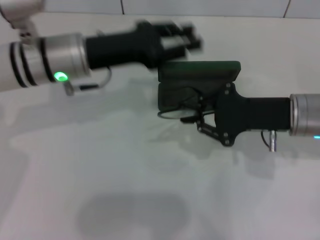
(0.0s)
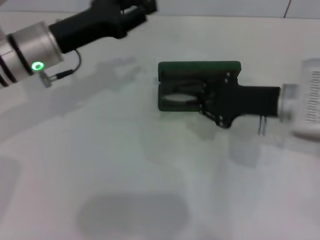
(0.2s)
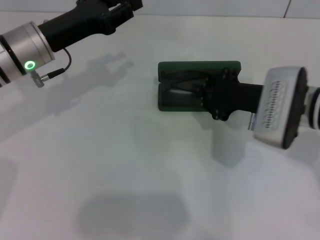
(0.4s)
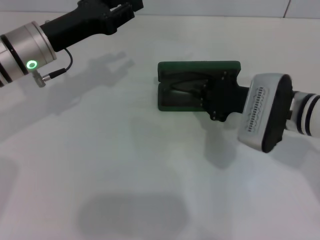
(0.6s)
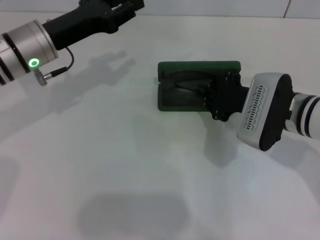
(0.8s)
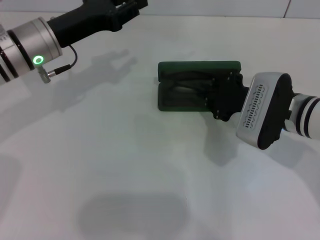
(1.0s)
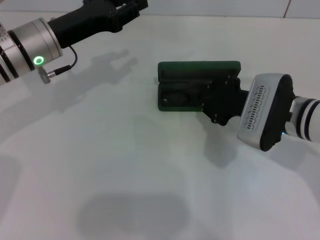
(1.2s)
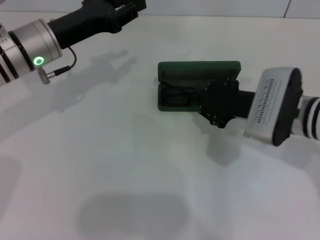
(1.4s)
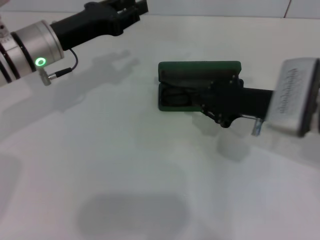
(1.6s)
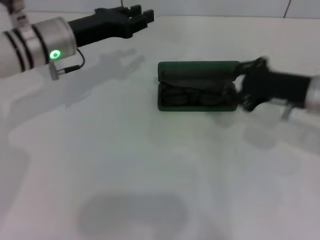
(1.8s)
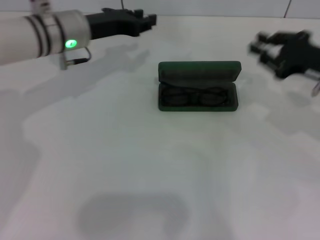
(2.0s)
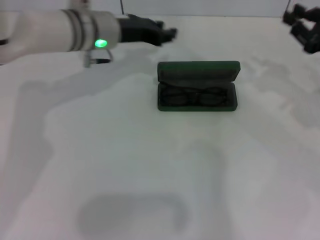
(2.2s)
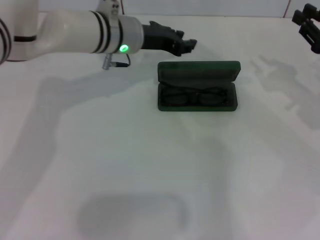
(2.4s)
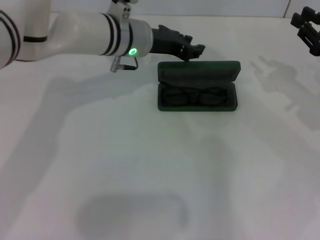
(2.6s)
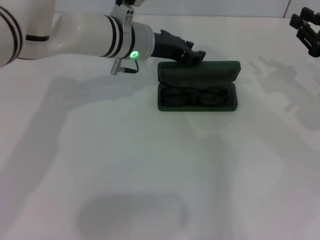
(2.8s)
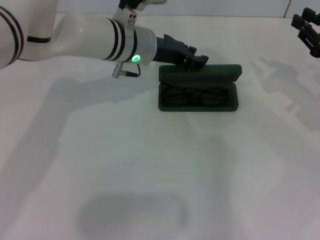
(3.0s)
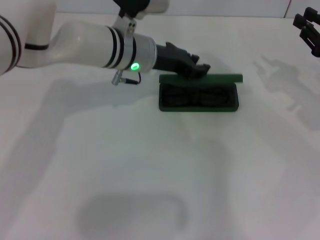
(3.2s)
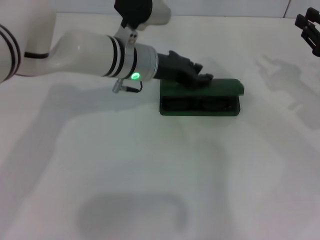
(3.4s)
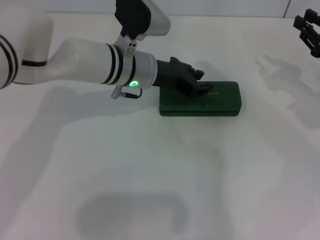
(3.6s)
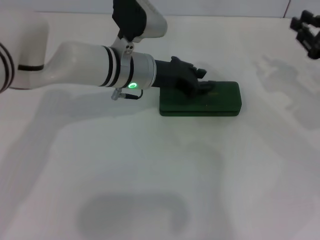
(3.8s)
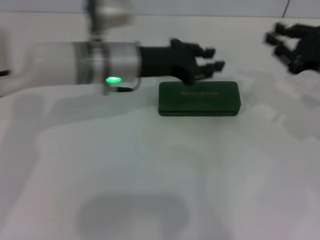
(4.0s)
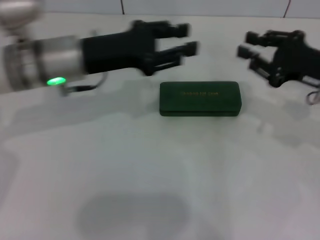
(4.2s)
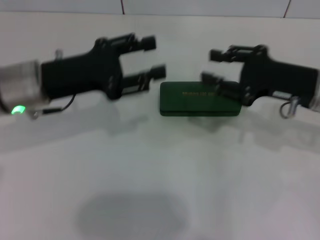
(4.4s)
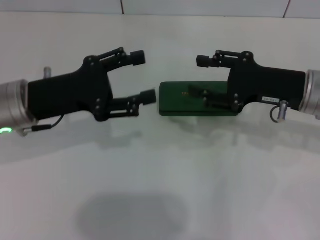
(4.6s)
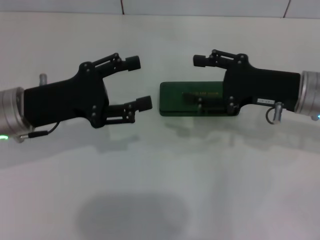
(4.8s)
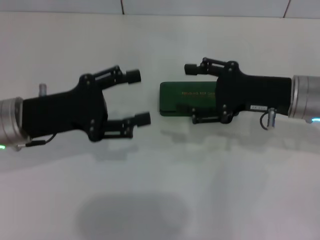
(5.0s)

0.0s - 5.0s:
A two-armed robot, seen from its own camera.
Step, 0.0s - 1.2s: Put the glasses into the case with your right hand.
Step, 1.4s - 3.4s: Close the glasses case with your left hand.
1.6s - 3.4s: The two grippers go roughly 15 cm to the right.
3.4s - 5.0s: The left gripper travels to the left and backward by approximately 20 cm, and opens its fingers; the right gripper travels to the left by approximately 10 cm, and opens its fingers.

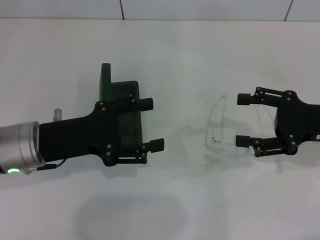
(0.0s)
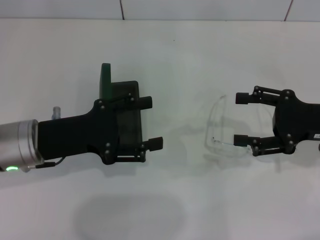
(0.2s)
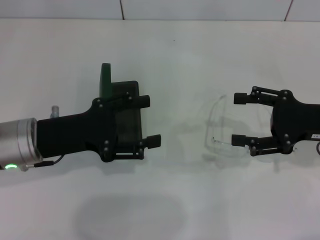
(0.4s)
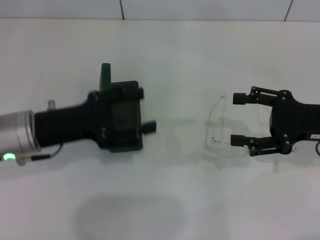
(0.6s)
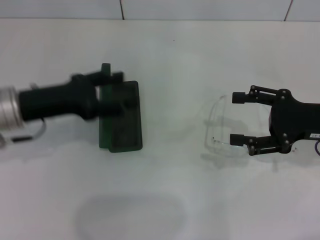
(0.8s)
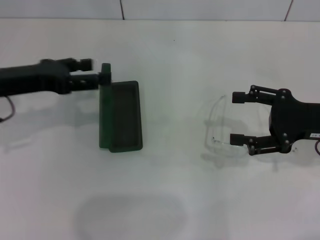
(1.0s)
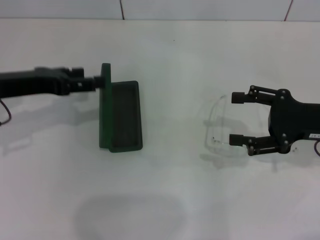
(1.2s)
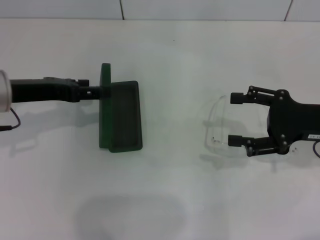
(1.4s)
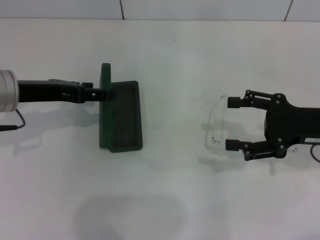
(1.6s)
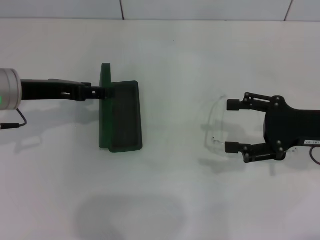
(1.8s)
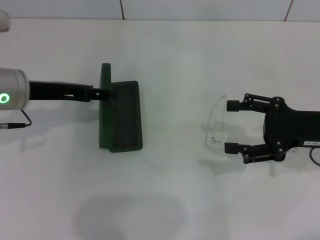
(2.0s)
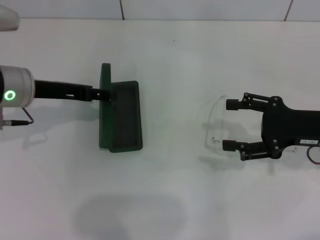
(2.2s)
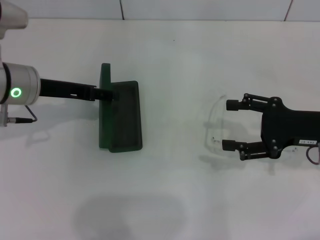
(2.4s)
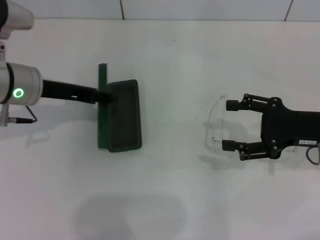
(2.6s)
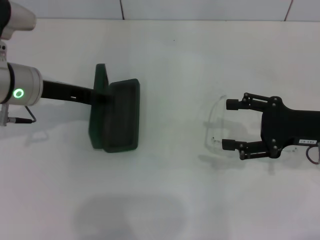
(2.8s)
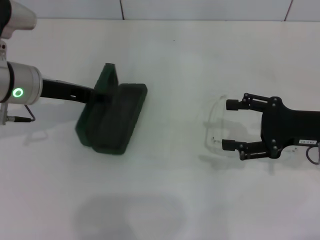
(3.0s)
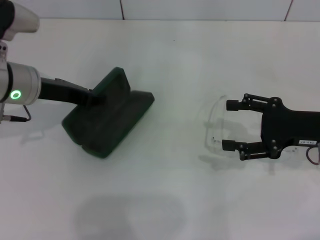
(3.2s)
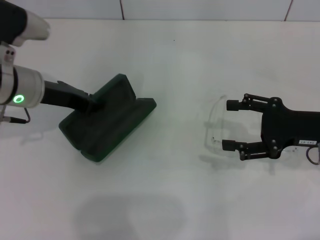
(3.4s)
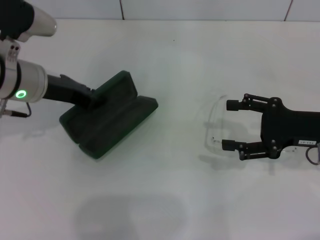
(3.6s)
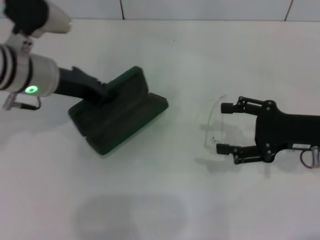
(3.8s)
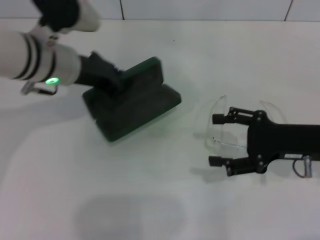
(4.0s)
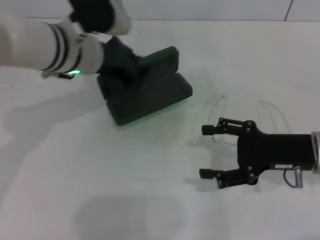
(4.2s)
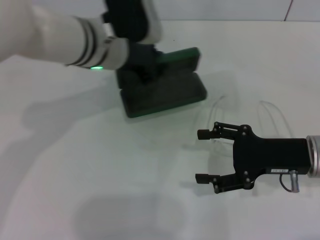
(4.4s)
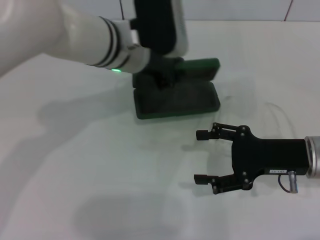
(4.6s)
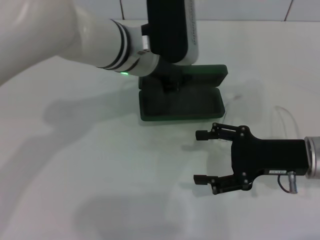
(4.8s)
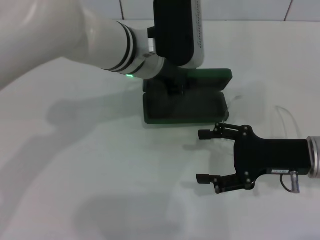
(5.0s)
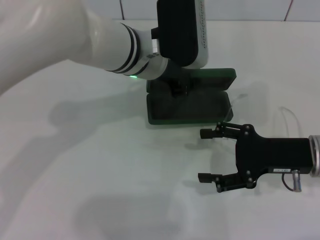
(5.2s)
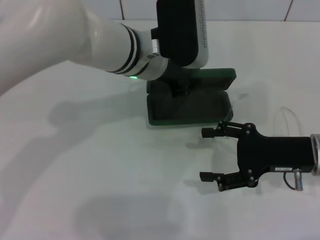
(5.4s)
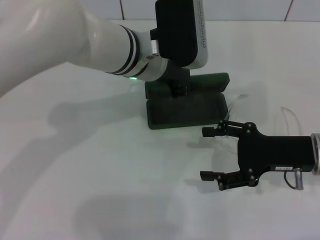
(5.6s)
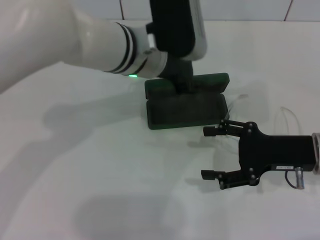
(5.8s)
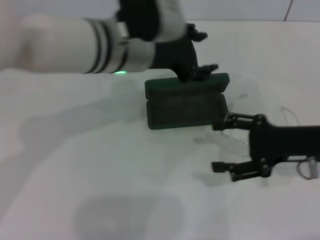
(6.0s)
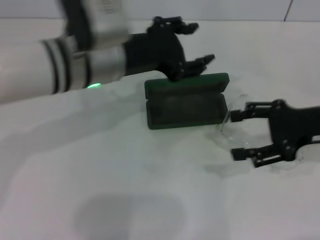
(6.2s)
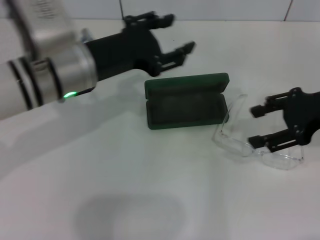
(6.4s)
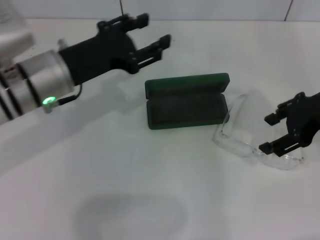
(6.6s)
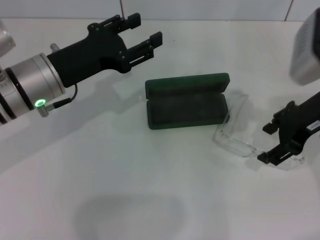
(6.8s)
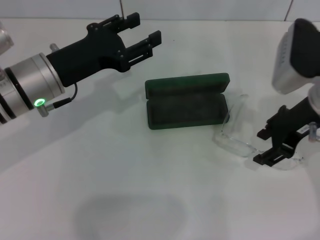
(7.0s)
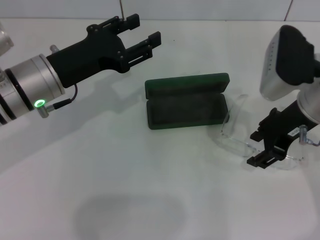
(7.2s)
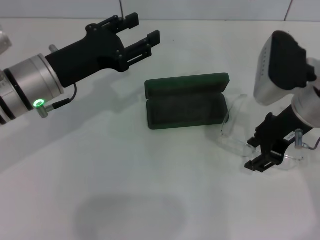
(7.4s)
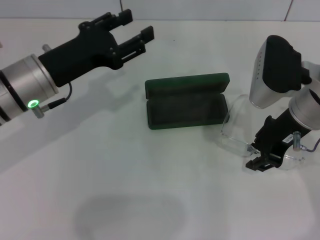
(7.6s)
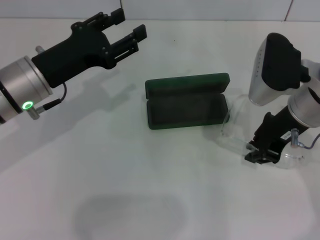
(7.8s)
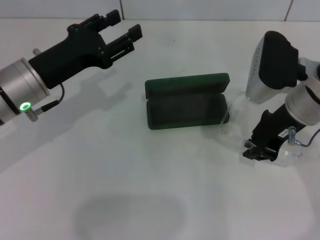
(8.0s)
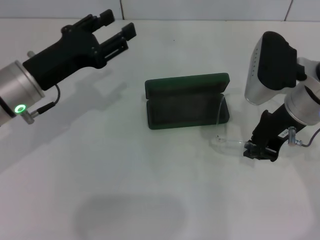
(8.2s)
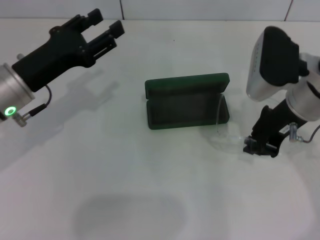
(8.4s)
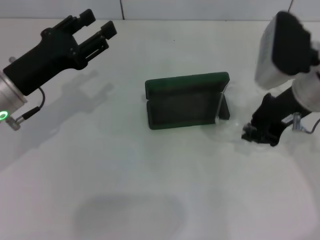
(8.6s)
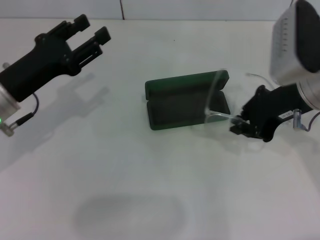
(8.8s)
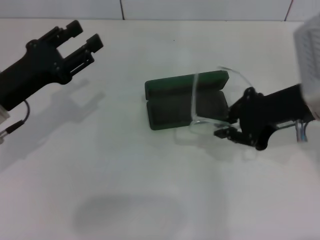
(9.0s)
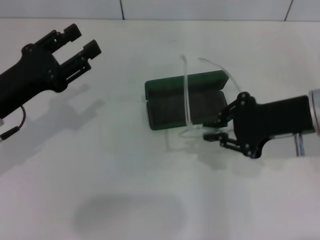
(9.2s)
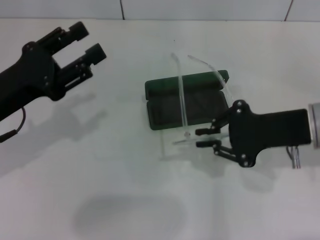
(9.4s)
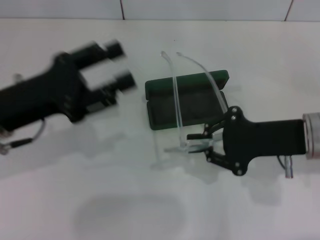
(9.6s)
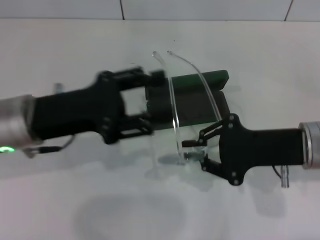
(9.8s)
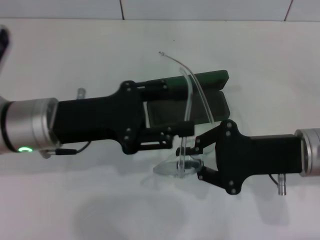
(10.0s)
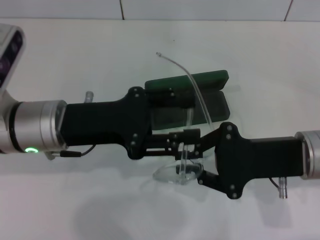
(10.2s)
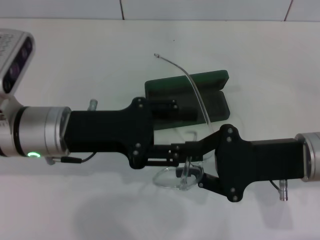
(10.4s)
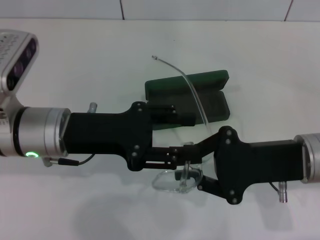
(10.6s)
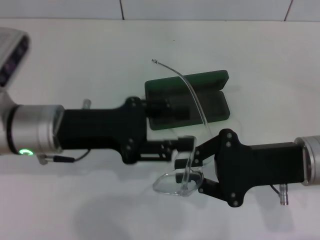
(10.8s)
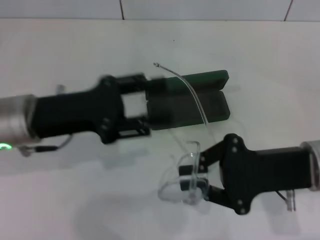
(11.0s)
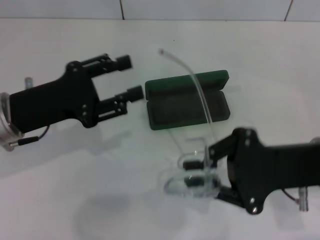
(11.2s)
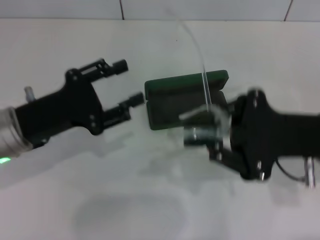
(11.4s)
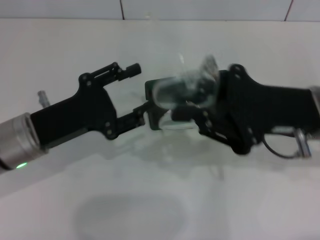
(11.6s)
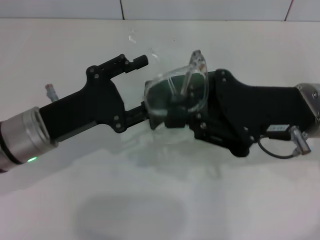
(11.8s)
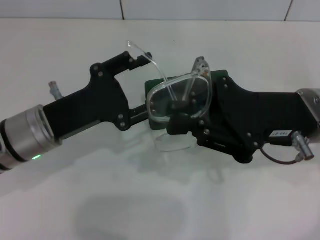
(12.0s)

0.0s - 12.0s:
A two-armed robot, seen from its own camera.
Step, 0.0s - 3.2s: Grab the glasses case with your left hand.
Step, 3.4s - 5.4s: Place the glasses case in the center of the table with your left hand.
Step, 5.8s - 8.0s: Grab the eyeglass frame with your right hand.
0.0s - 1.6s: The left gripper shifts some 5 cm forward.
1.6s - 3.0s: There are only small adjustments of the grippers.
3.0s - 4.4s: The left gripper goes some 15 cm to the right, and closes up.
4.4s - 6.0s: The left gripper opens.
6.0s - 7.6s: The left gripper shifts about 15 cm to the left and downward; the right gripper heads to the left and upward, covering roughly 10 cm, and closes up.
7.6s - 9.0s: The right gripper closes. Meanwhile the left gripper moves to the left, roughly 5 cm.
9.0s - 10.4s: The right gripper goes some 5 cm downward. The left gripper is displaced to the right by some 10 cm.

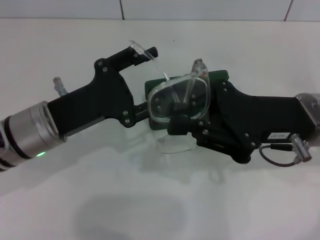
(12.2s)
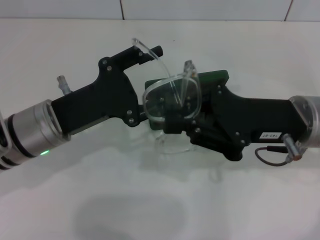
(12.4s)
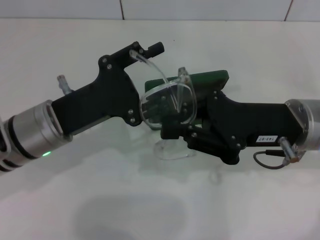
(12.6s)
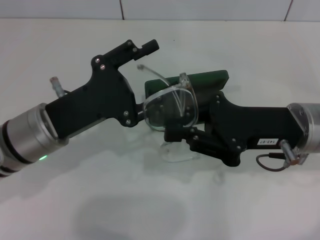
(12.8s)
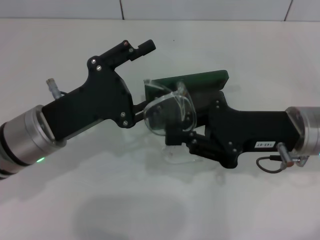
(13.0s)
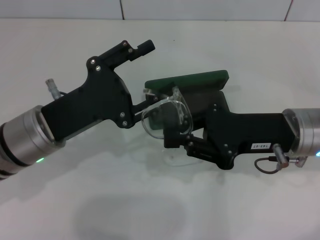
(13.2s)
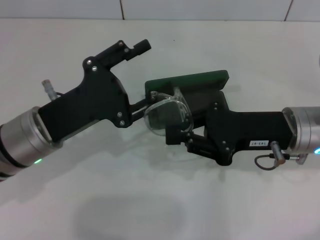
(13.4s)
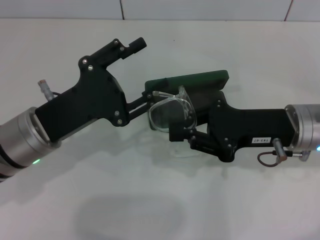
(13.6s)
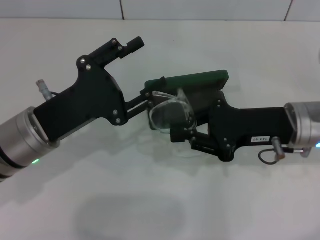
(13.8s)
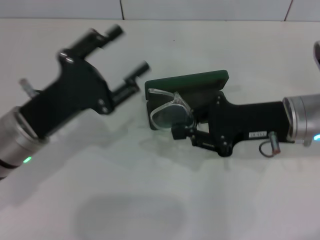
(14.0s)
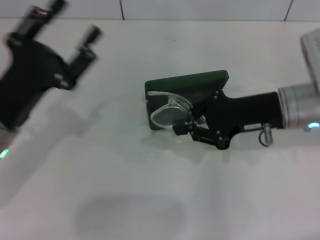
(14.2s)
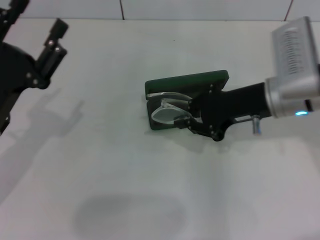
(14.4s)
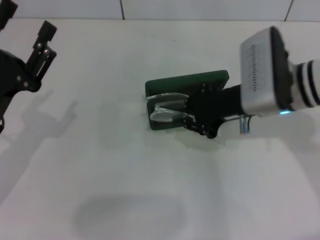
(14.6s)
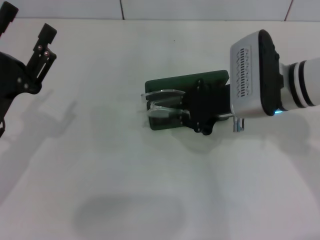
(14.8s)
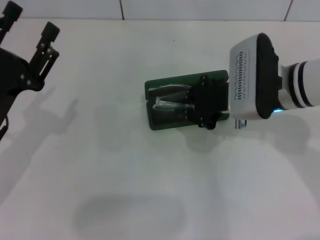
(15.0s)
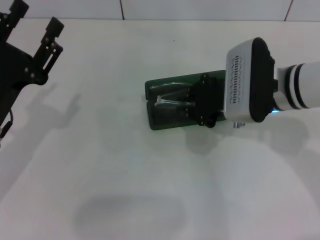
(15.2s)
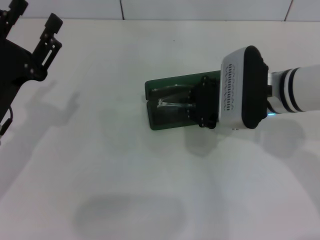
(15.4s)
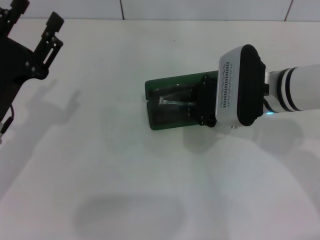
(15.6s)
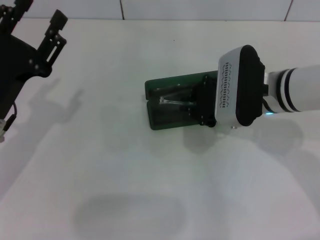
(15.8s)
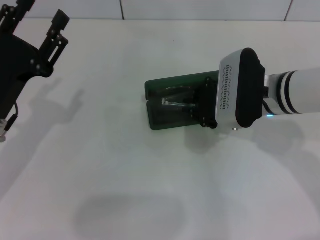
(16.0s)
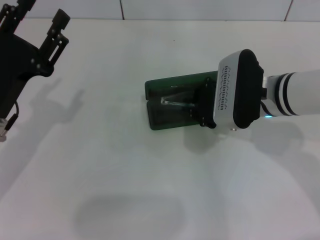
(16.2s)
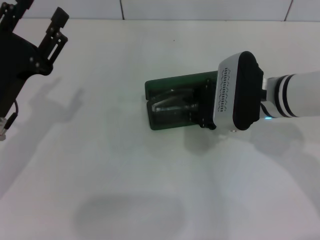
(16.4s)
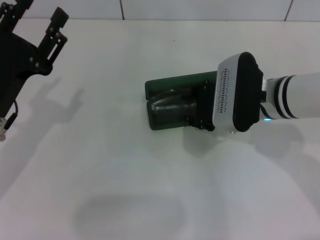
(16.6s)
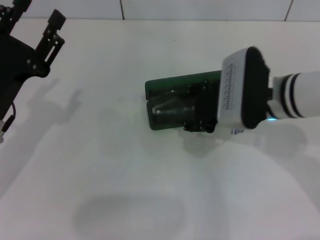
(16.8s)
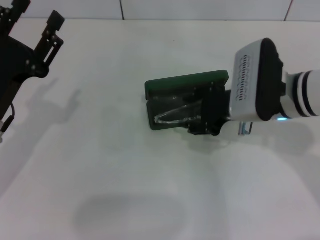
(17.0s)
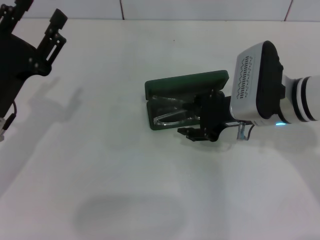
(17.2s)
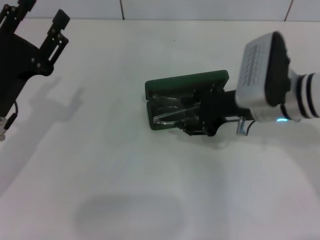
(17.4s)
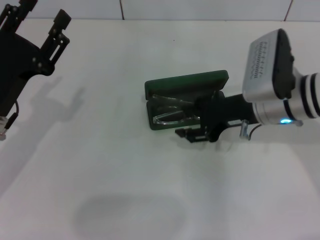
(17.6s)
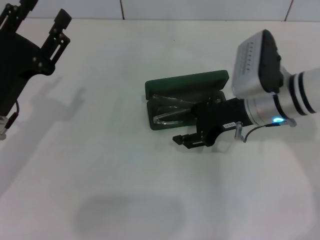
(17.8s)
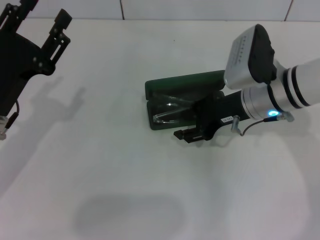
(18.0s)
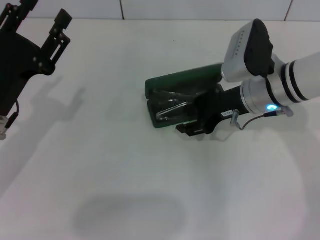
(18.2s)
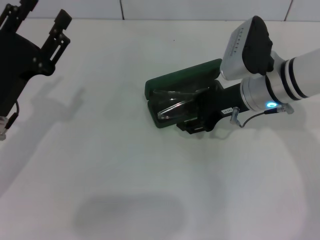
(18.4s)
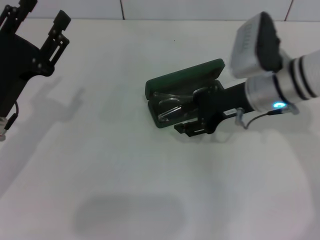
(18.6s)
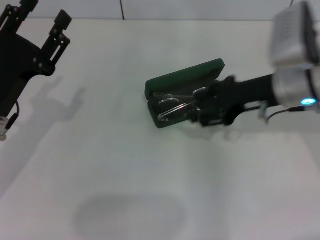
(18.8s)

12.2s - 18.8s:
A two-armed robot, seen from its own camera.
Step, 13.8s - 18.6s: Put the glasses into the case with your right hand.
13.8s - 15.4s: The two grippers go roughly 5 cm to the left.
15.4s - 17.2s: The right gripper opens its fingers.
17.2s - 18.8s: The grippers move only a little.
